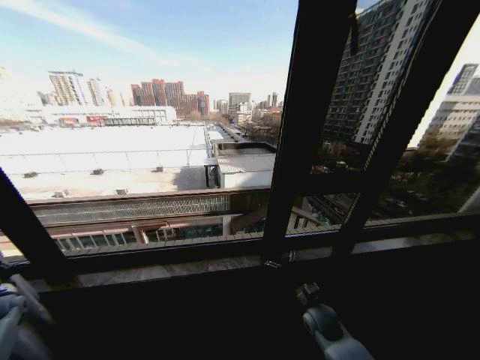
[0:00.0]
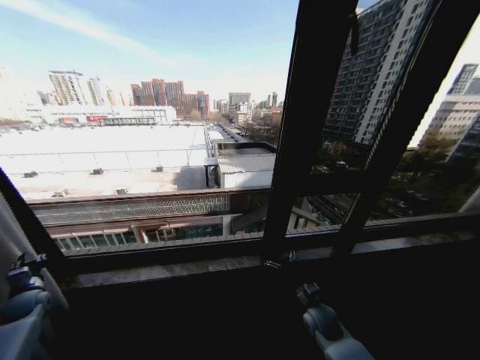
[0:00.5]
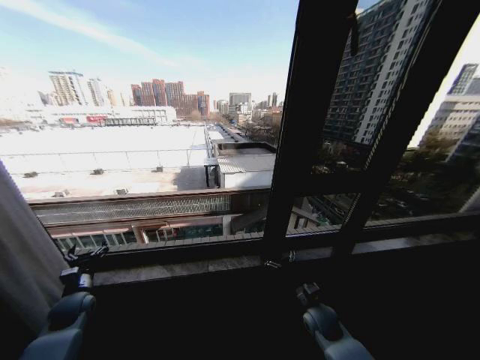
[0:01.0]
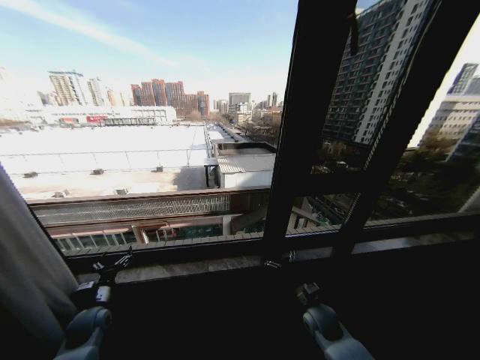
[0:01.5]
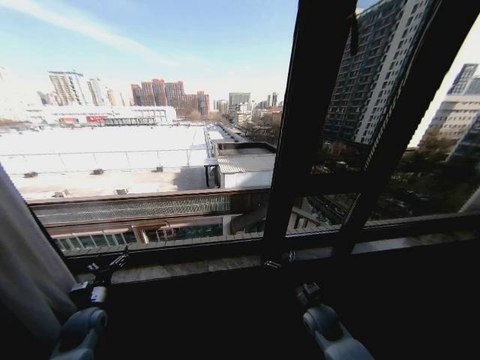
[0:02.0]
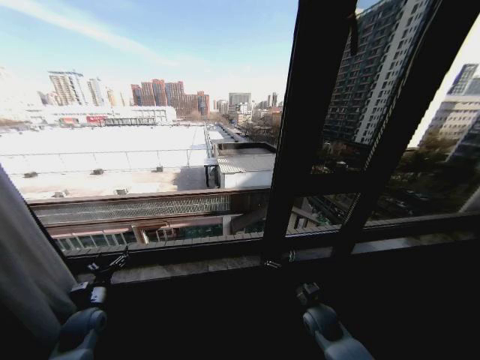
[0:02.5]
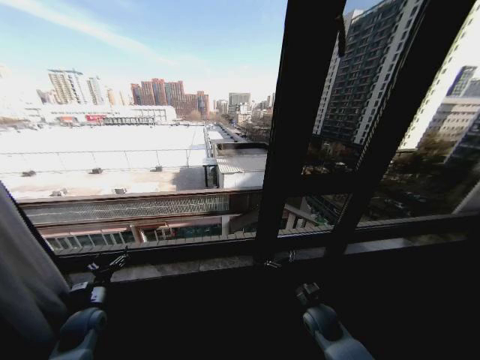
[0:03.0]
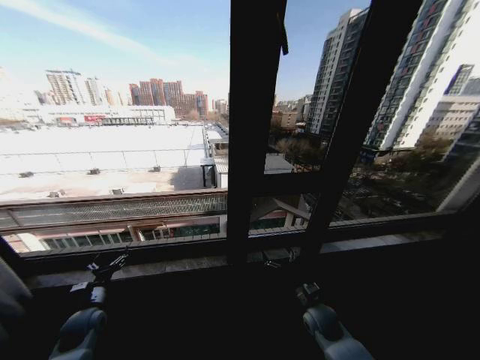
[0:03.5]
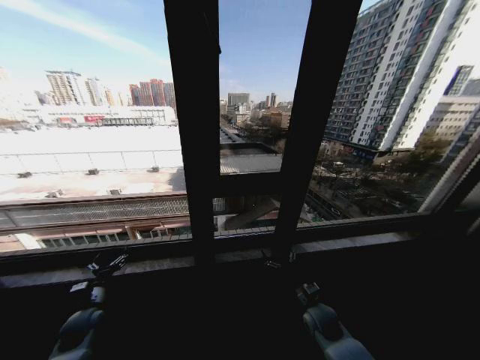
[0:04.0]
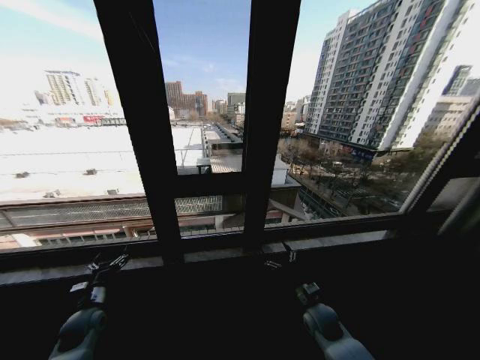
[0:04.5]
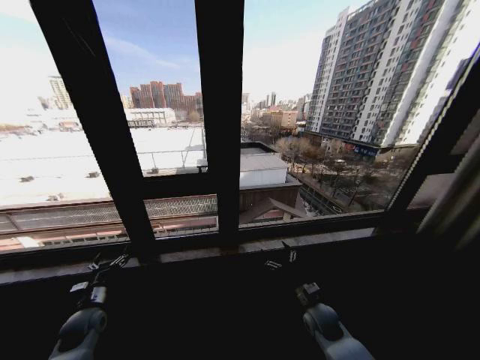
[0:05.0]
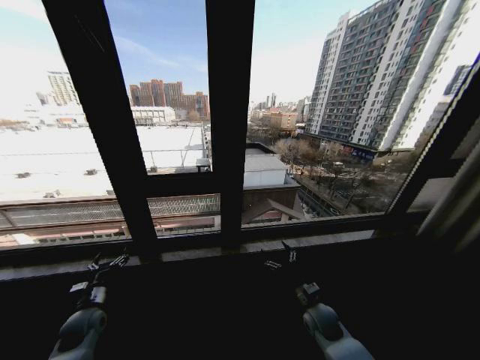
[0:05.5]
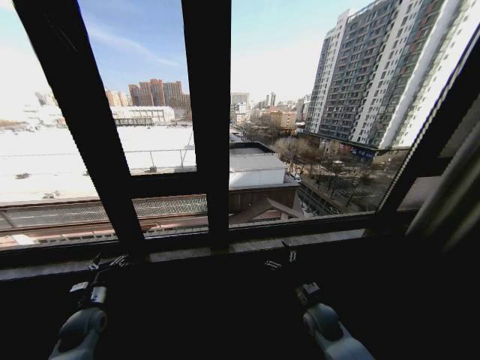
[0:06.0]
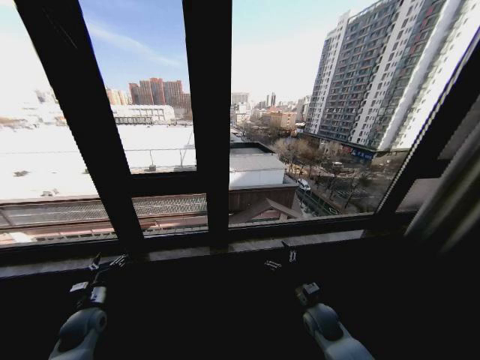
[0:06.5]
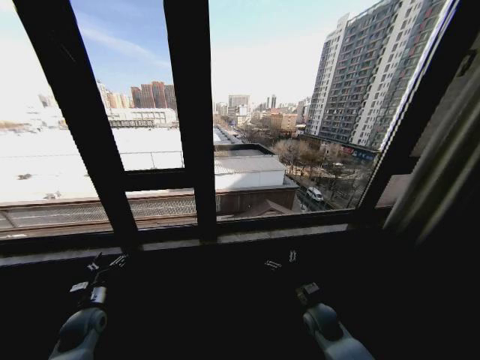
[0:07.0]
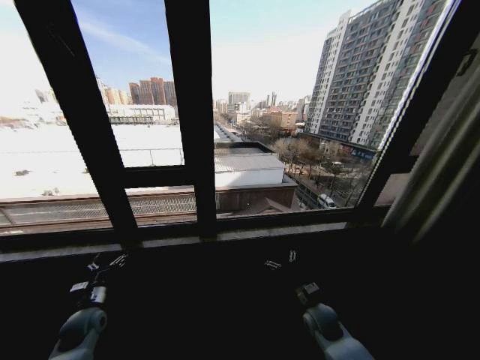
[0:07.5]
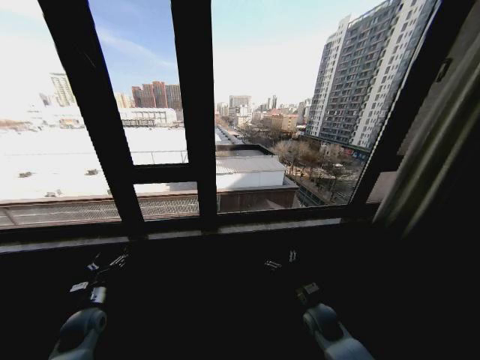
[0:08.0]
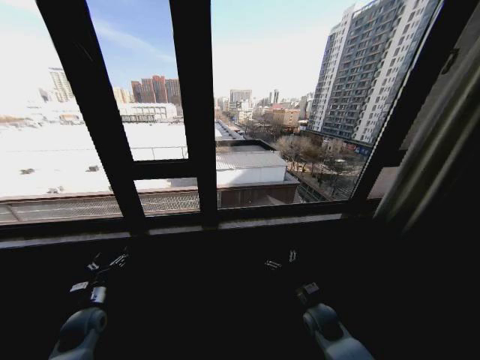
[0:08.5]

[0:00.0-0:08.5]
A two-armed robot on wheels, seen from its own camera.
Task of the whole recording: Open the curtains by pulling them apart, changing their state from closed to fully open.
0:00.0 to 0:02.0: The left gripper goes approximately 25 cm to the right, and opens up.
